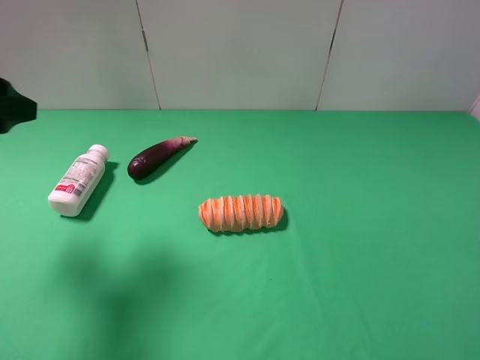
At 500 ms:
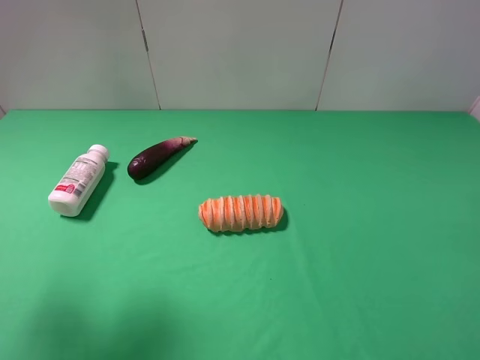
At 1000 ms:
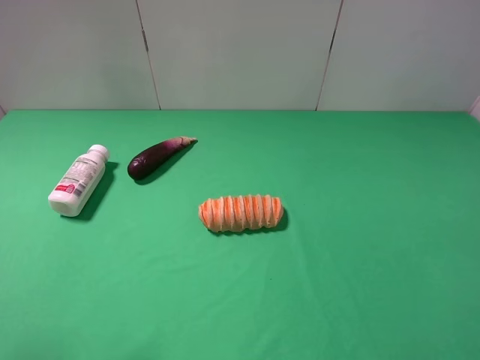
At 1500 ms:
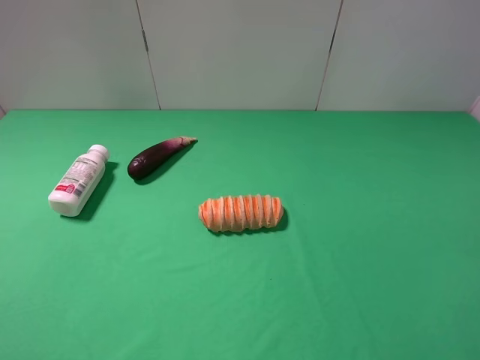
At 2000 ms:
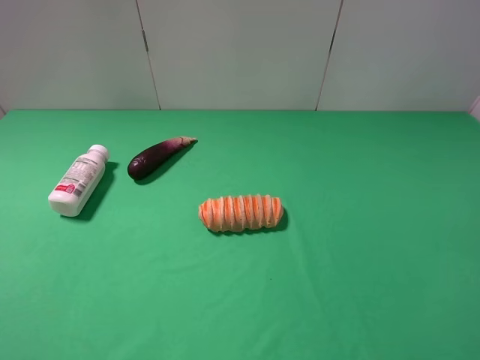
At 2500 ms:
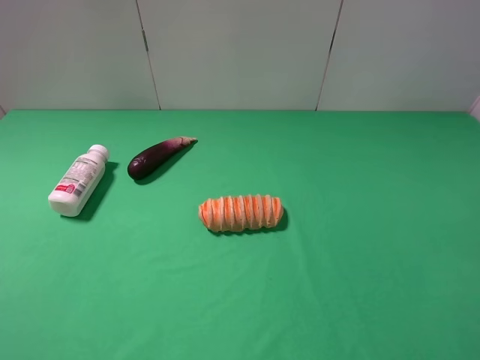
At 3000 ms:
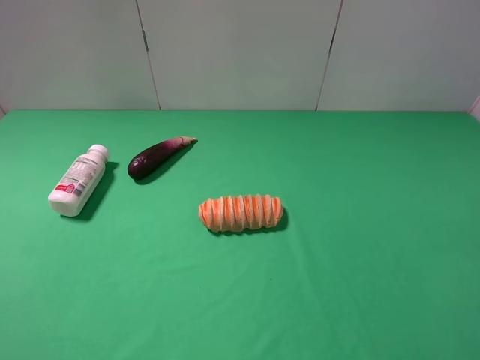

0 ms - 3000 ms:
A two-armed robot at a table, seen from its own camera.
Task of the whole recording: use the right gripper to pick up the item and transfer it from the right gripper to the left gripper.
0 ms - 1500 ms: The left gripper heads backward, covering roughly 15 cm.
